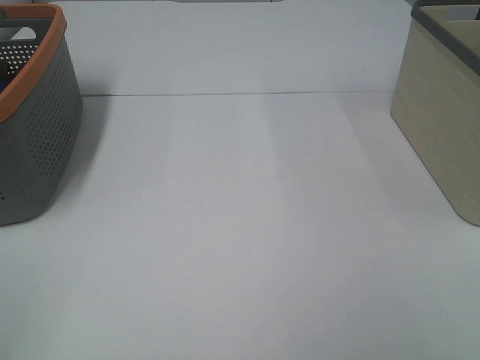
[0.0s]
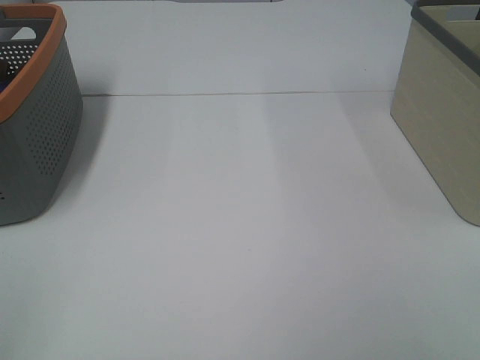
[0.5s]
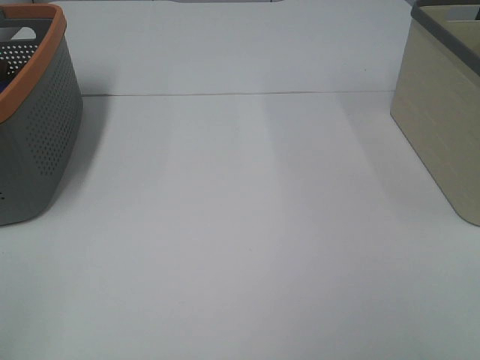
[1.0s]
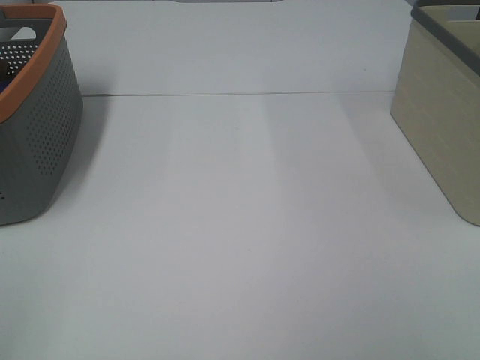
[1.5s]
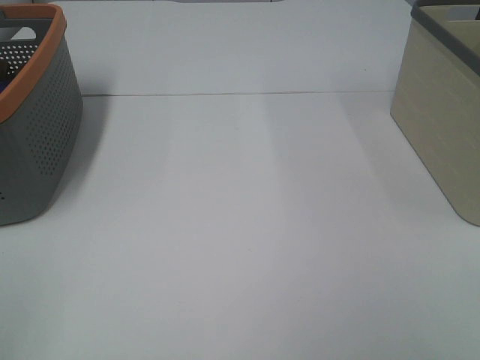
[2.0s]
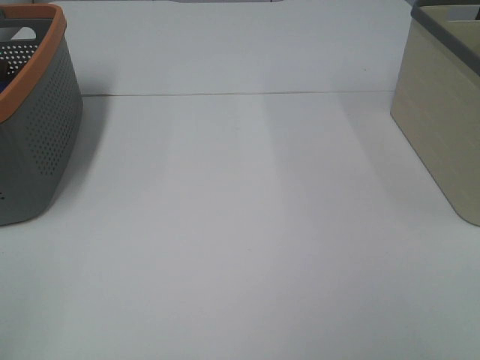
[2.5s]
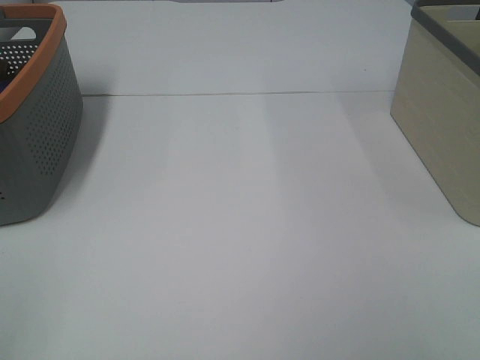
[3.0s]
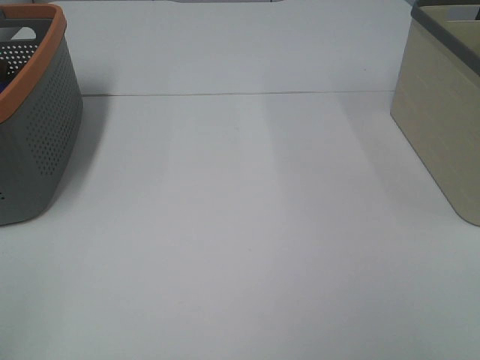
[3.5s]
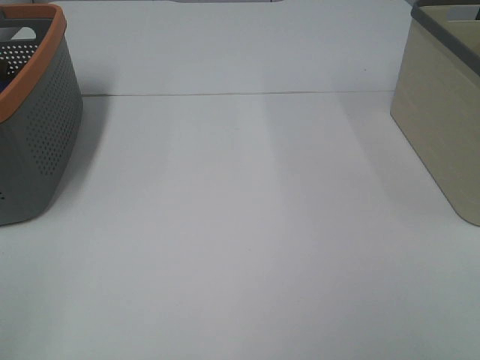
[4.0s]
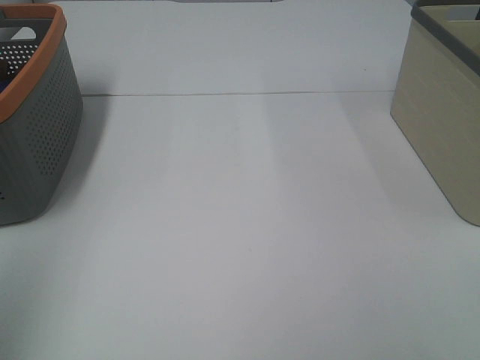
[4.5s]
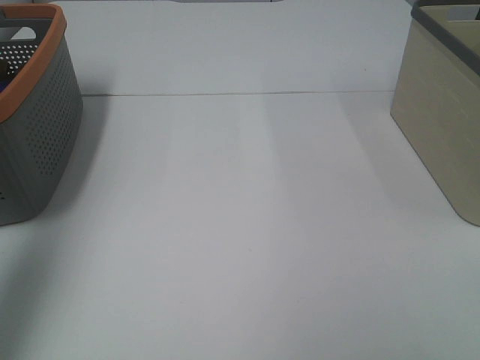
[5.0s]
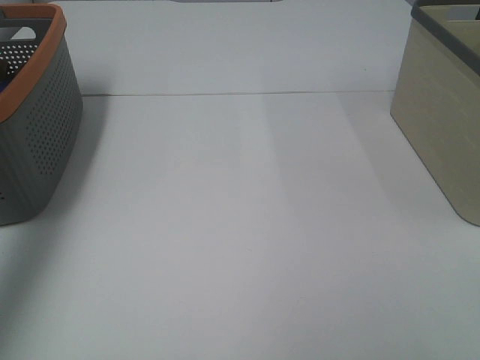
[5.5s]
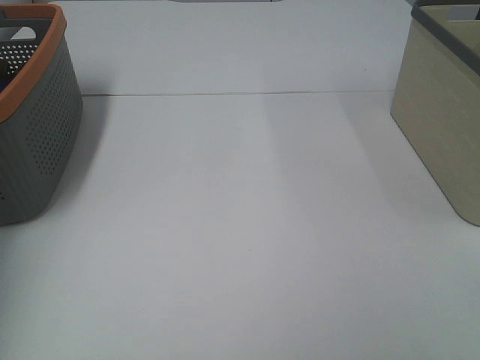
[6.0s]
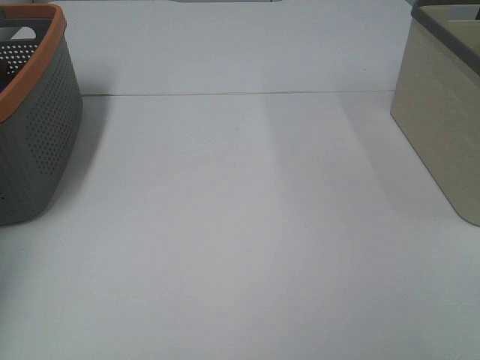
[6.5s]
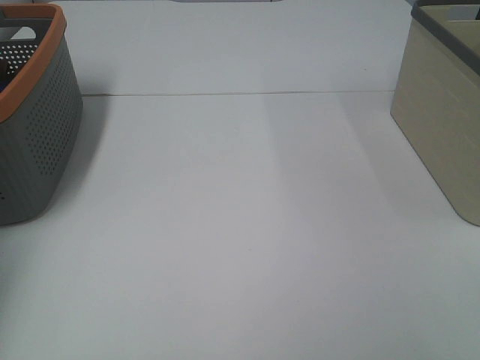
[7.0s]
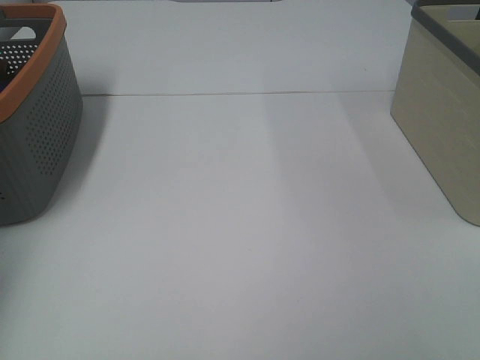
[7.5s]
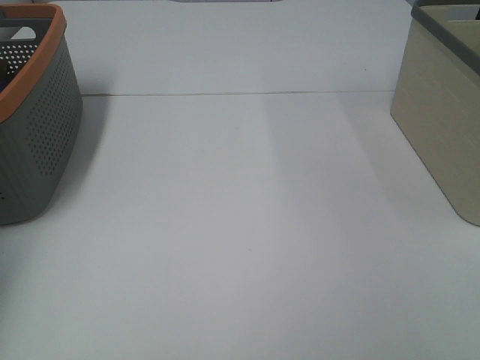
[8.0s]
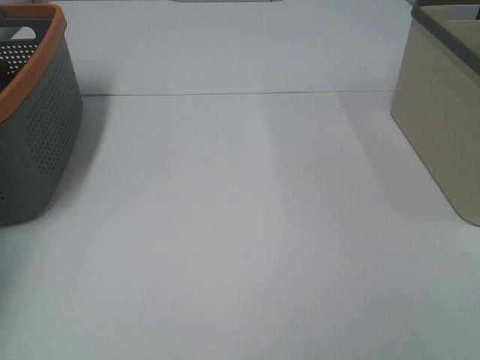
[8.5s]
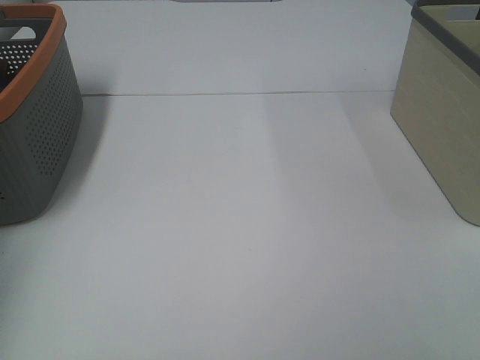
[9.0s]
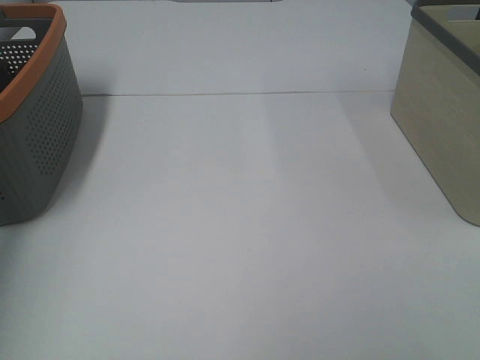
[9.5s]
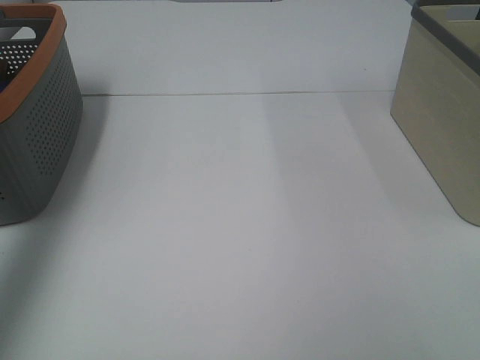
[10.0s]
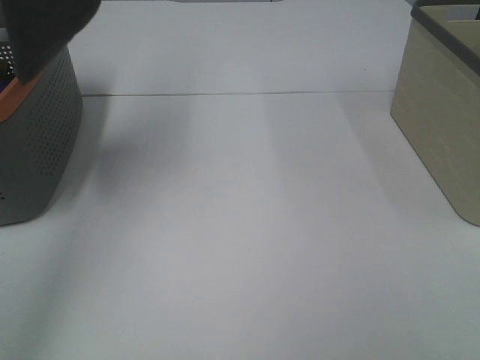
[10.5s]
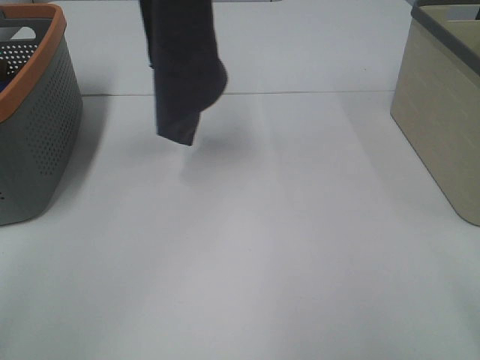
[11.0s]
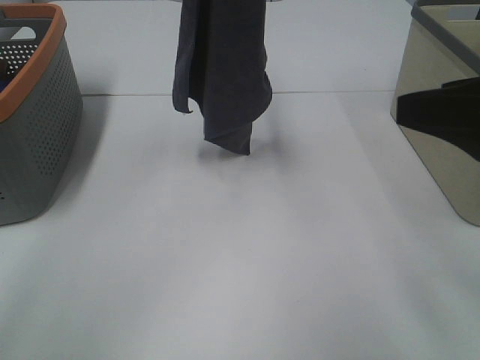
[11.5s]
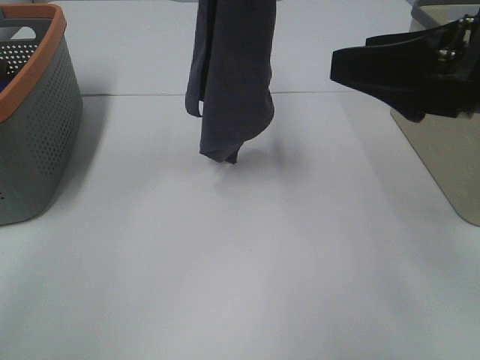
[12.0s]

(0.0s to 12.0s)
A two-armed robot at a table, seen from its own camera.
Task of the whole recording: Remove the towel and place it.
0.0s - 2.0s: The two grippers keep their place.
4.0s - 6.0s: The left gripper moves forward, roughly 40 cm.
8.0s - 10.0s: The left gripper moves upward and backward, about 30 cm, and closes up.
10.0s - 12.0s: The left gripper travels to the right by approximately 25 cm. The right gripper moves forward and to the left, about 20 cm.

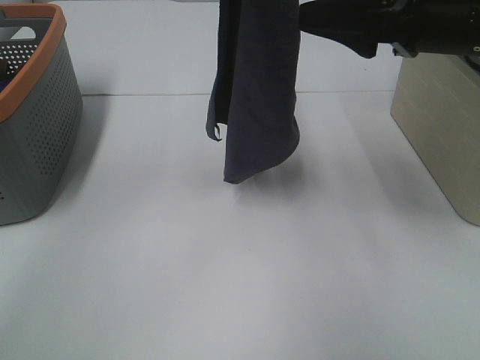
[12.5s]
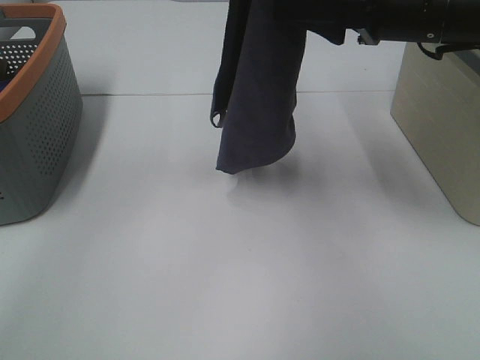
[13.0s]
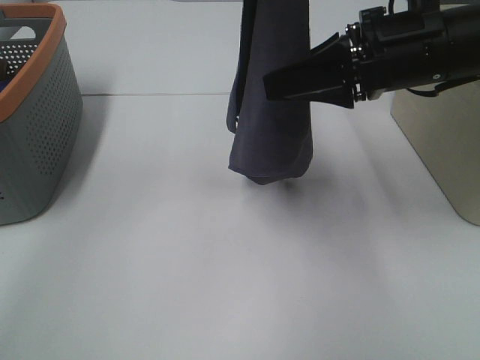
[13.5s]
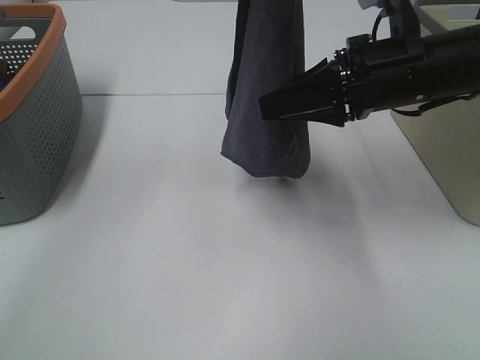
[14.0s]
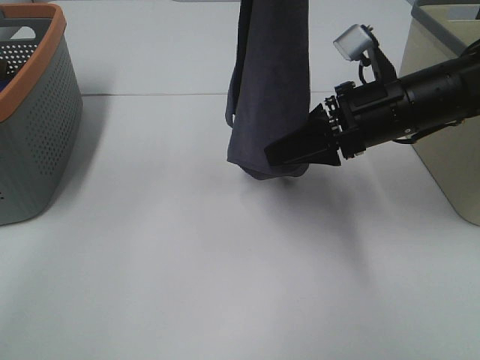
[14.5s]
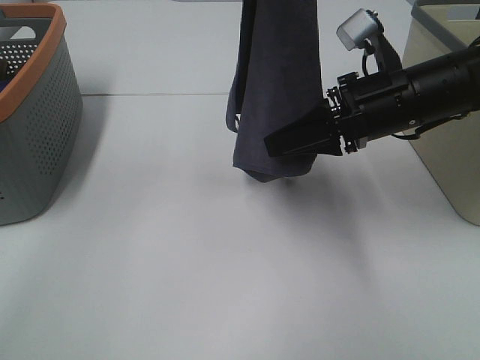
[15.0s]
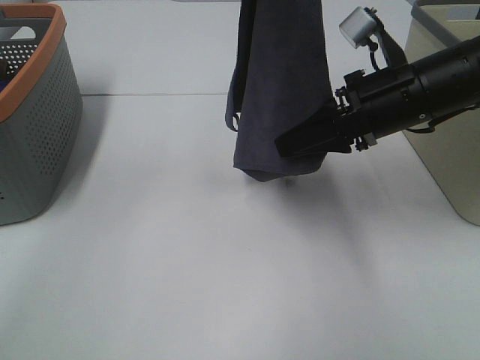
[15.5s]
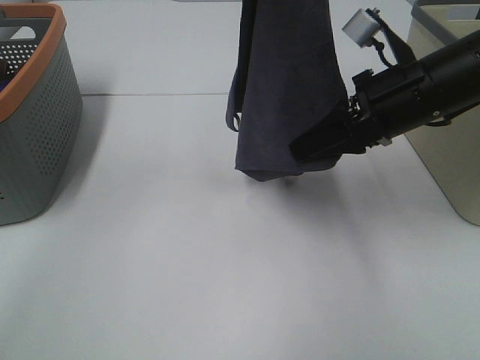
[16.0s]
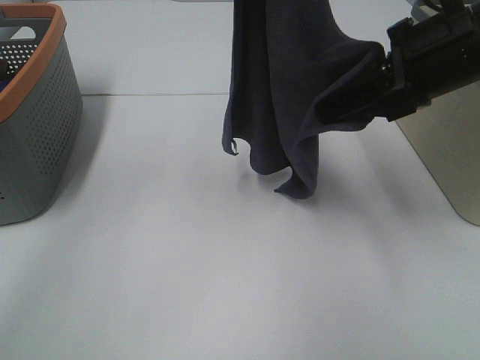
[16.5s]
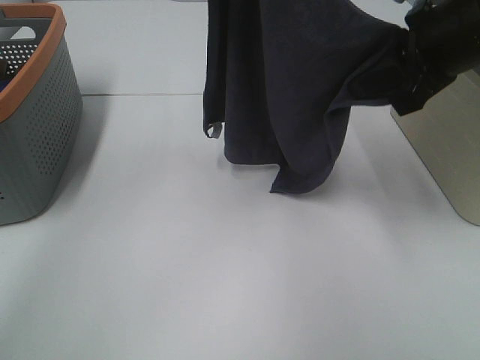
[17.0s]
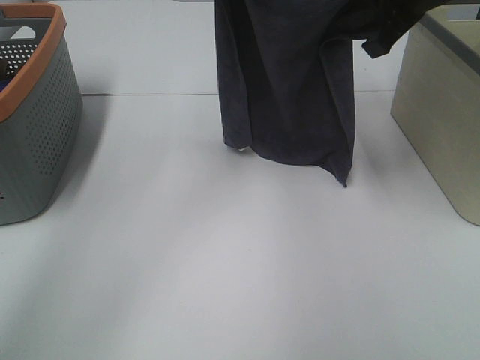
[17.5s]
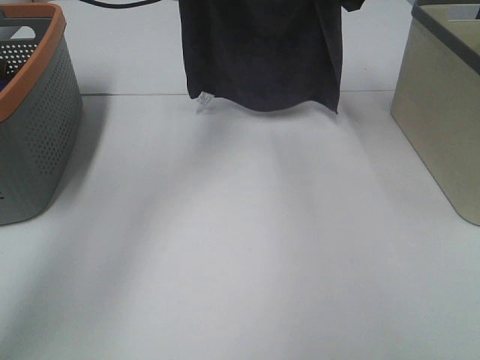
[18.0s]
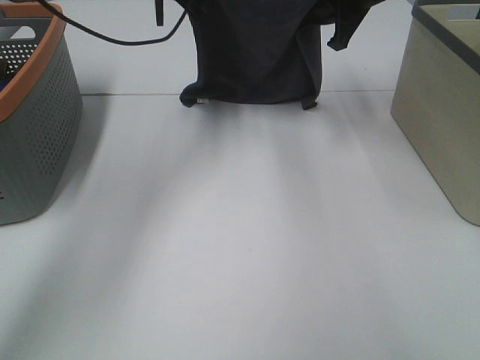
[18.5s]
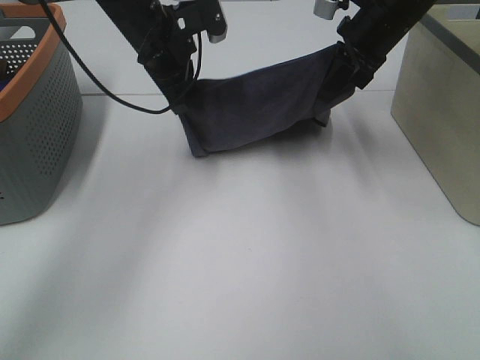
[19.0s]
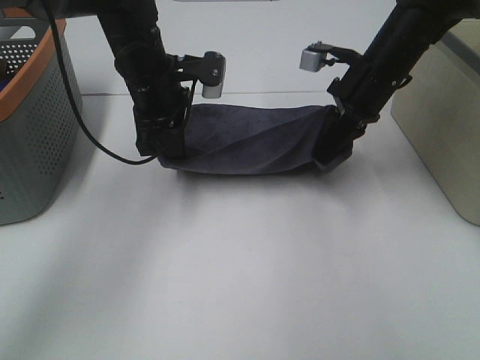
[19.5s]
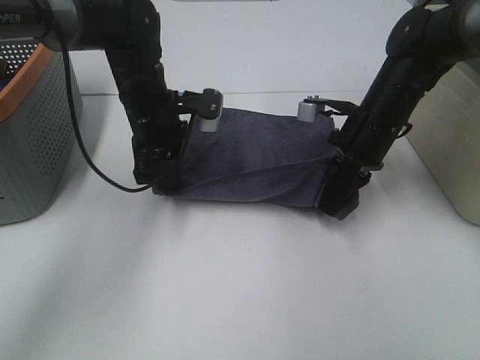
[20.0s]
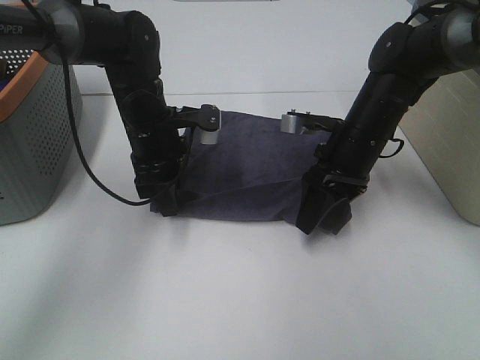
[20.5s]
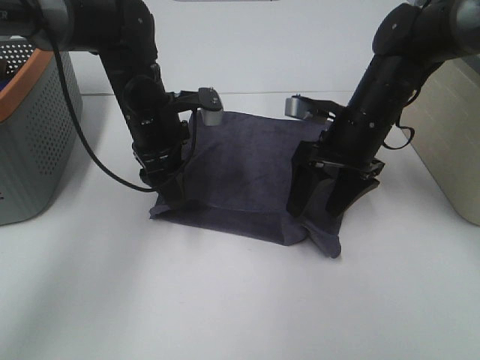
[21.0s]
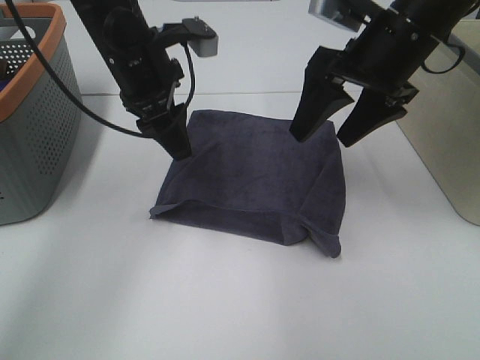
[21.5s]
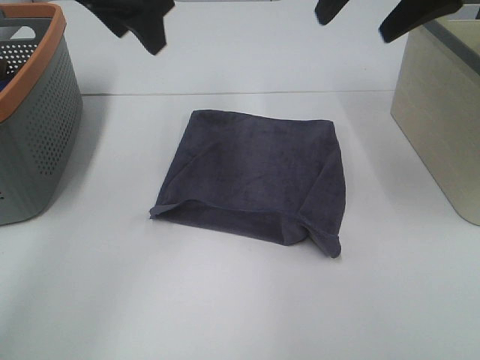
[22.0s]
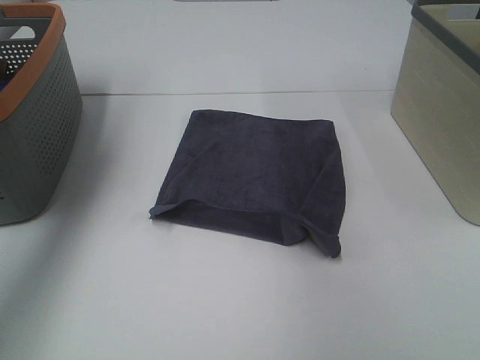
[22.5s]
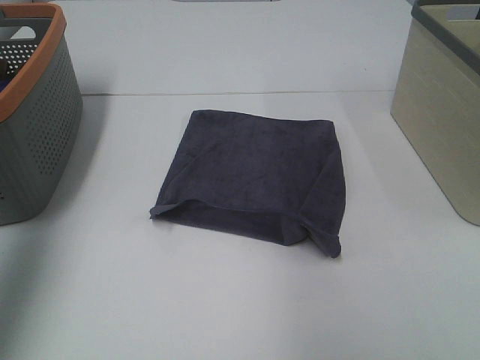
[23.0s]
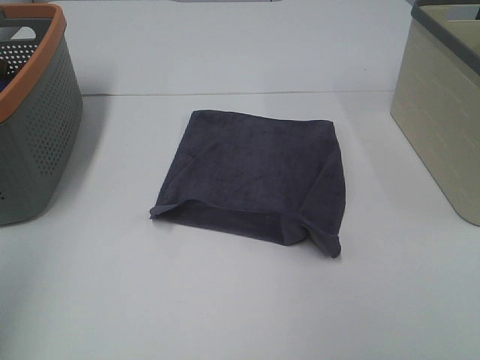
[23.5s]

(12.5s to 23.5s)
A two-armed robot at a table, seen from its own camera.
Task of the whole recording: Remove the towel and place it.
Step, 12.5s - 14.5s: Right hand: grab a corner of the grey towel and straighten it.
Step, 15.0s - 16.5s: Left hand: spread the grey towel flat on the table.
Step, 15.0s - 16.5s: Right hand: spread the grey towel flat on the table.
12.5s - 14.5s: The right gripper travels downward by about 10 cm.
14.5s - 16.0s: The right gripper closes up.
16.0s - 18.0s: The right gripper shifts roughly 20 cm forward and upward. Meanwhile the left gripper heads forward and downward, covering about 20 cm.
18.0s - 20.0s: The two grippers go some 20 cm downward and backward.
20.0s - 21.5s: The grippers both shift upward by some 10 cm. The left gripper opens its fingers. Meanwhile the right gripper opens up.
21.5s - 23.5s: The left gripper heads backward, to the left and upward, covering approximately 40 cm; the right gripper travels backward and to the right by about 30 cm.

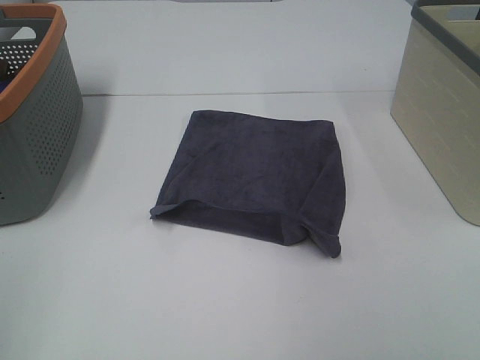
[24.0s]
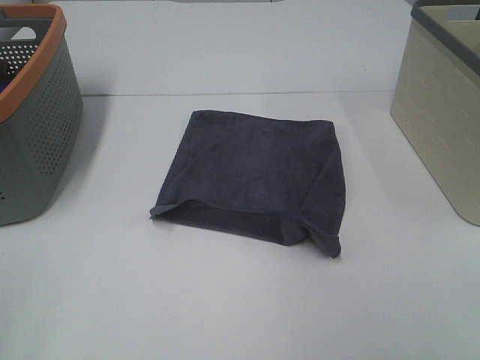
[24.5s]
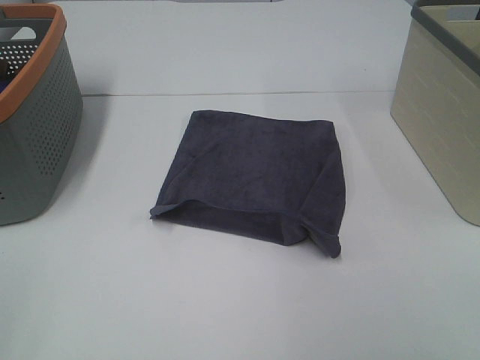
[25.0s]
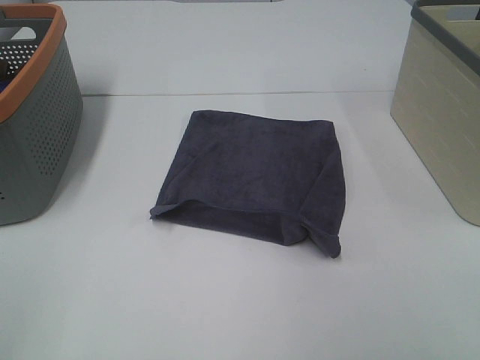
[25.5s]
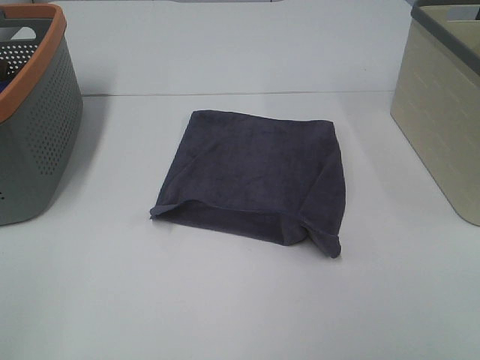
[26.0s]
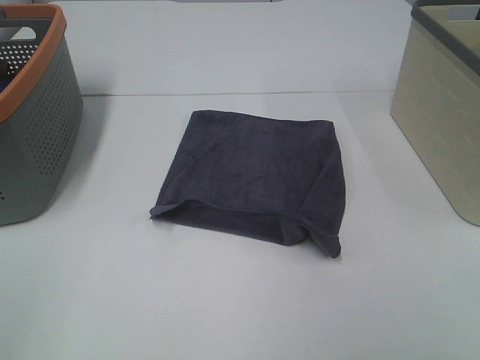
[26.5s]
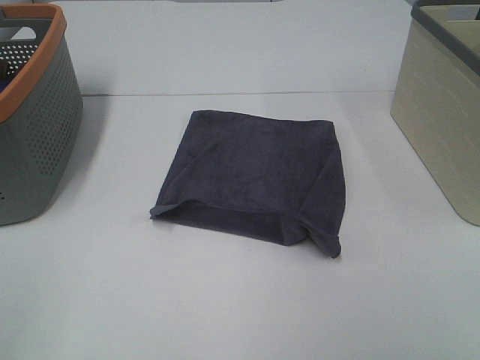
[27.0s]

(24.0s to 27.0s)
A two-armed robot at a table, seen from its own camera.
Task of the whole recording: Remove the towel and place it.
25.5s - 27.0s: Neither gripper changes place.
